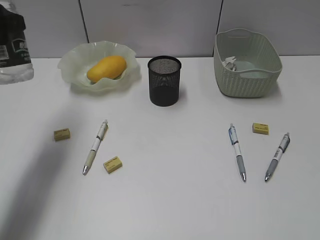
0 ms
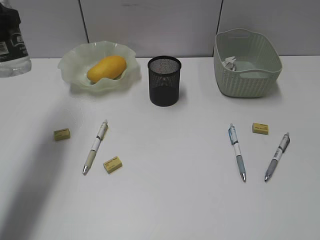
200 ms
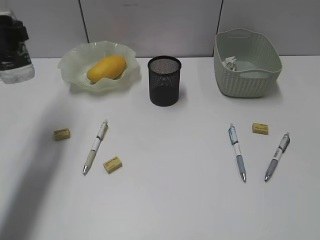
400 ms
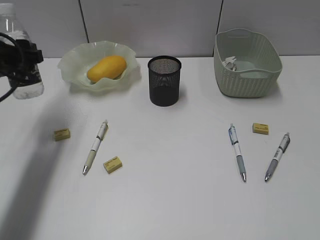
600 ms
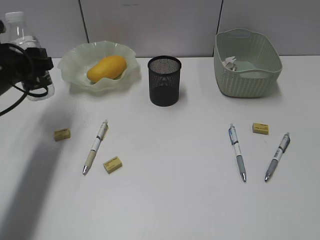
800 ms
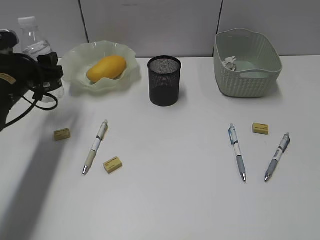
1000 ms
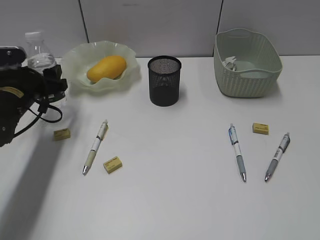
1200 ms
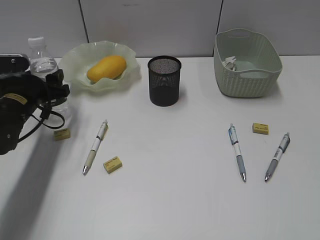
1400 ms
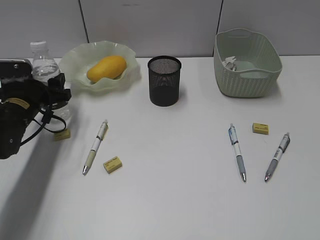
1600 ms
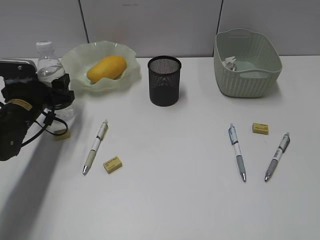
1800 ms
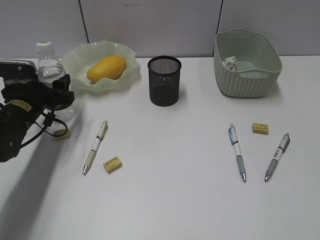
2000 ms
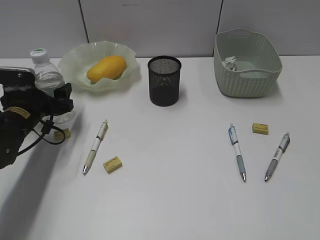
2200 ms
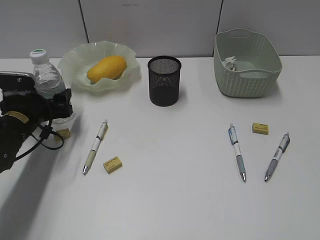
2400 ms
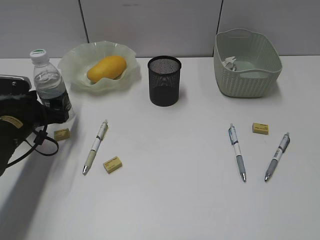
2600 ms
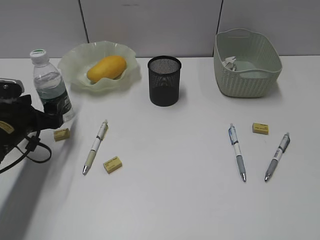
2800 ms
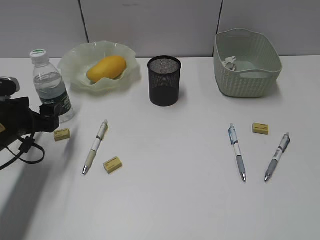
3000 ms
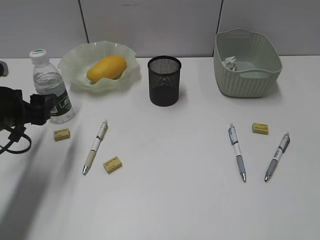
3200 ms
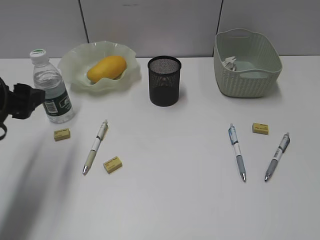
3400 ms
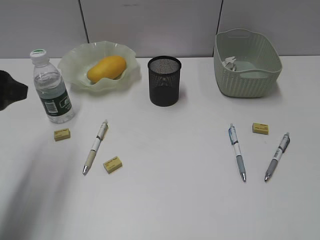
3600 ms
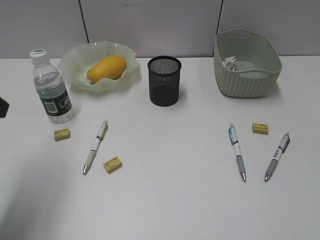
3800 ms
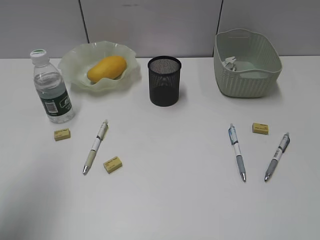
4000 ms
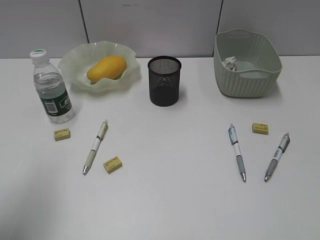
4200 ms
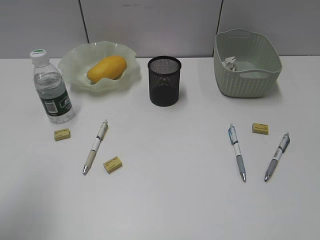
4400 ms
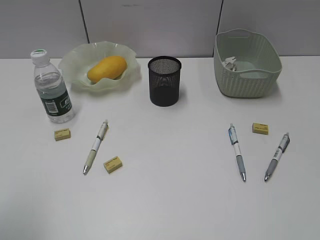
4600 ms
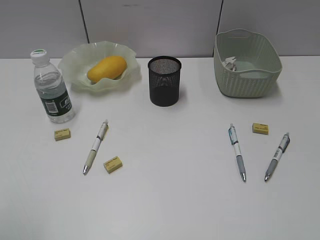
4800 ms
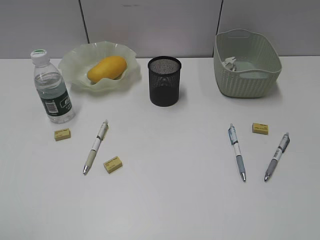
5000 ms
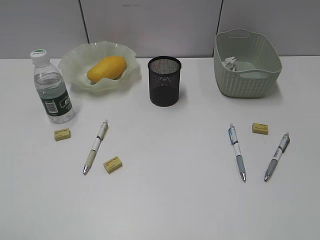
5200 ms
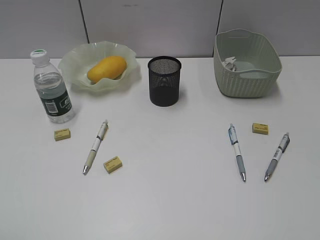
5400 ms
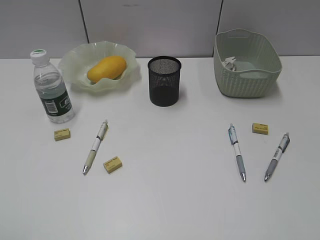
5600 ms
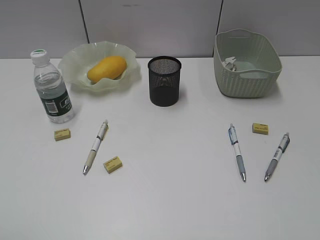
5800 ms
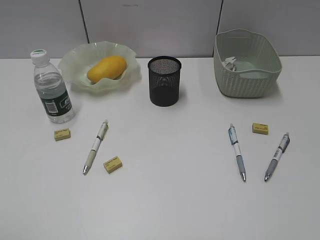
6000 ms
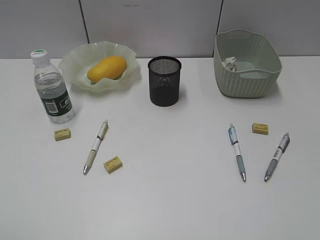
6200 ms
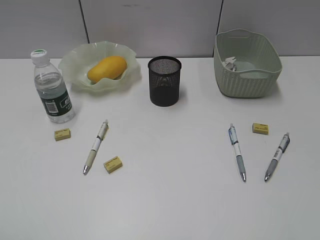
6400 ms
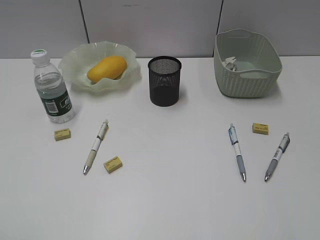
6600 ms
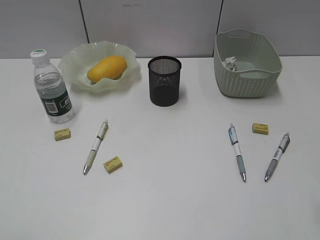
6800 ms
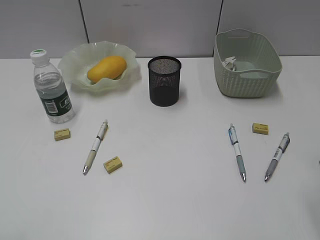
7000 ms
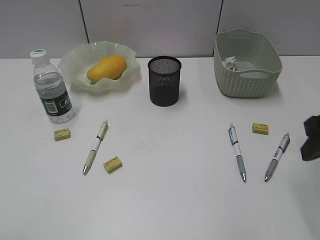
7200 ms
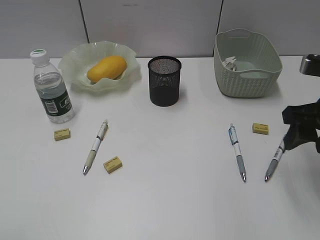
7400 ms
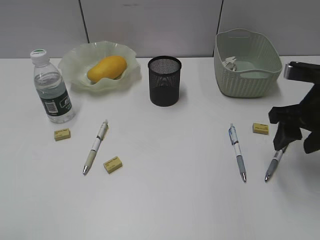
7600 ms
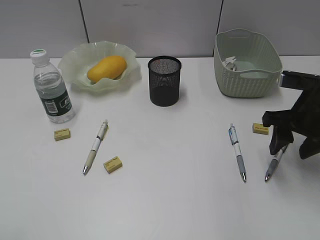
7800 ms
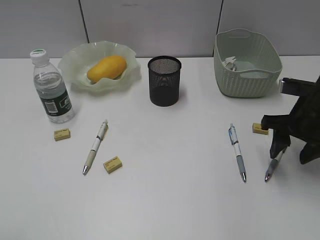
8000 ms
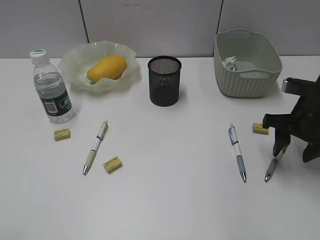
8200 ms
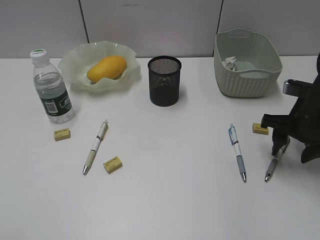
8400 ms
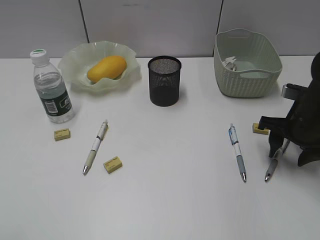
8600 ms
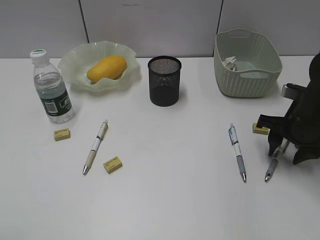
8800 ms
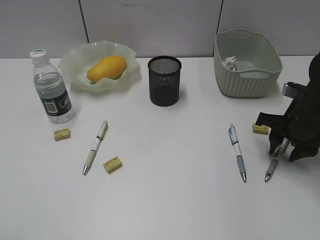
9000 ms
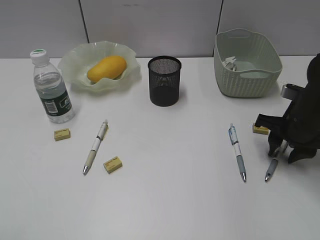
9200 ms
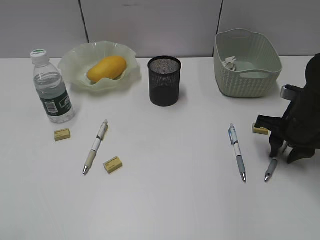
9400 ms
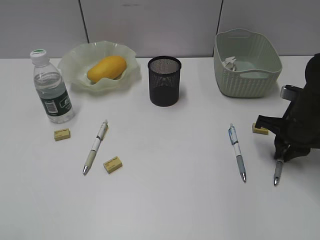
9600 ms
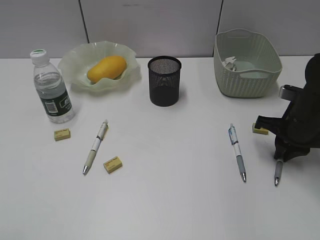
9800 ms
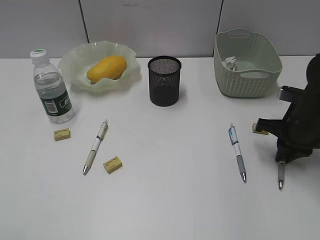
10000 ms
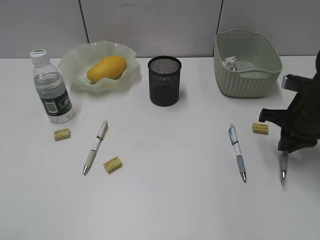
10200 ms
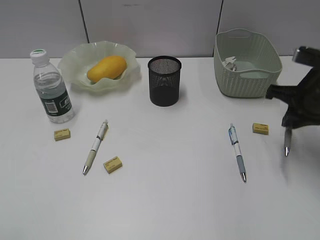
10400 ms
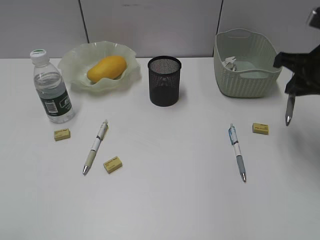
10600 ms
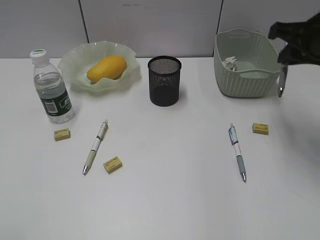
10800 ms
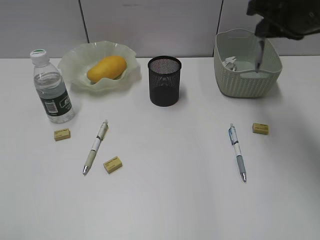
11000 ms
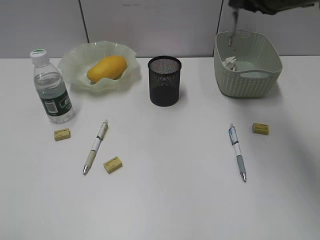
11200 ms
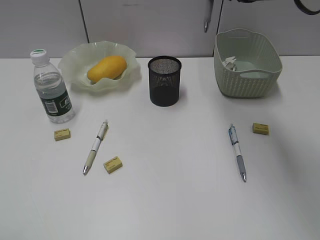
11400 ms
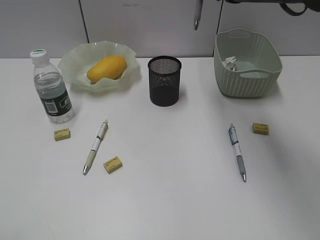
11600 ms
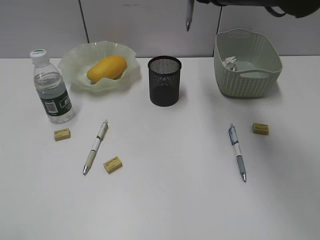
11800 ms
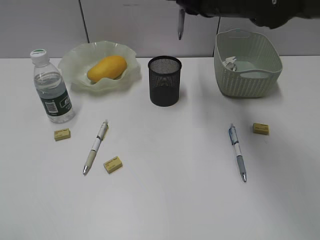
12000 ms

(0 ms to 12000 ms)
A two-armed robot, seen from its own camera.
Step, 0 ms - 2600 ms: Stand the bottle with left gripper.
Step, 2800 ms - 10000 ms: Grasp the gray pen with right gripper.
0 ms - 1600 ms: The left gripper travels downward and forward by approximately 20 cm.
1600 ms - 3000 ms: The left gripper moves backward, roughly 5 cm.
3000 ms - 4400 ms: The left gripper is displaced upward and backward by approximately 25 cm.
4400 ms - 6000 ms: The left gripper heads backward, covering about 15 cm.
6000 ms - 7600 ms: The right gripper travels forward by approximately 25 cm.
7600 ms - 9000 ms: The right gripper heads downward, covering approximately 5 cm.
9000 ms - 10400 ms: The right gripper goes some 5 cm upward, and closes its fingers.
10400 ms - 12000 ms: The right gripper is displaced to the left, upward and forward by approximately 20 cm.

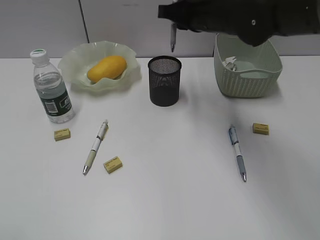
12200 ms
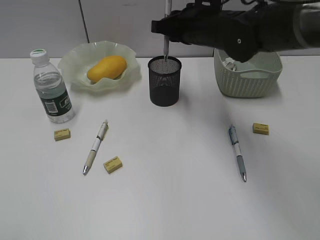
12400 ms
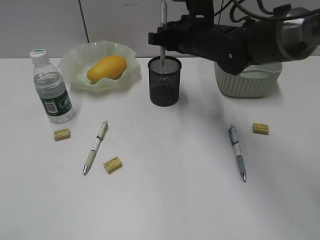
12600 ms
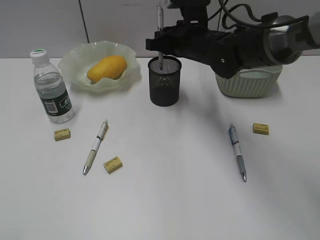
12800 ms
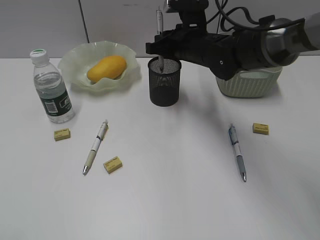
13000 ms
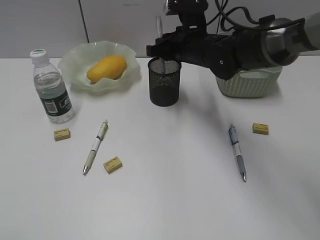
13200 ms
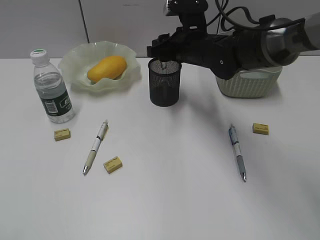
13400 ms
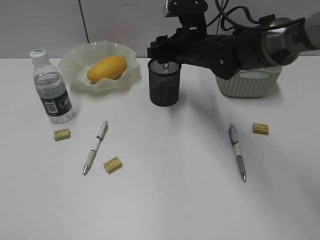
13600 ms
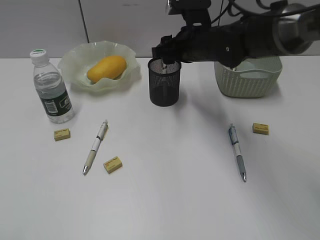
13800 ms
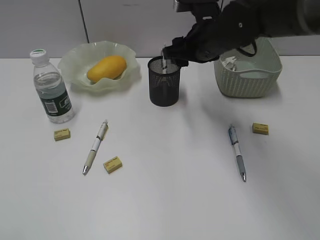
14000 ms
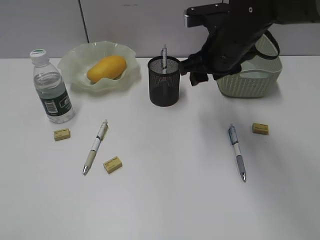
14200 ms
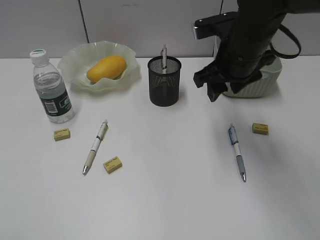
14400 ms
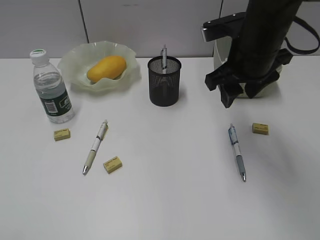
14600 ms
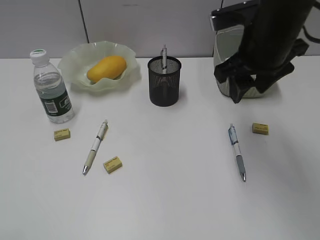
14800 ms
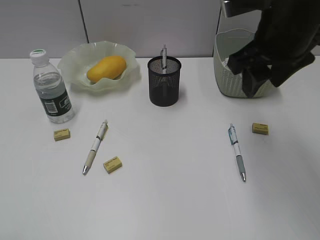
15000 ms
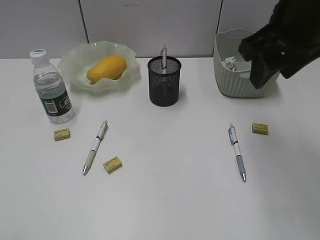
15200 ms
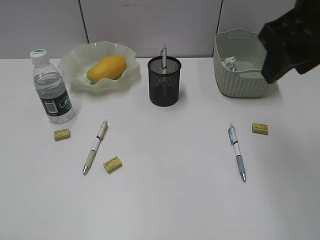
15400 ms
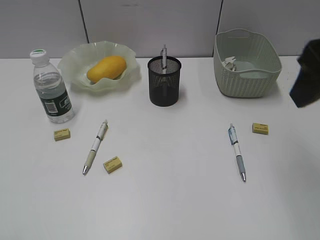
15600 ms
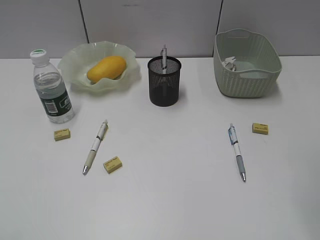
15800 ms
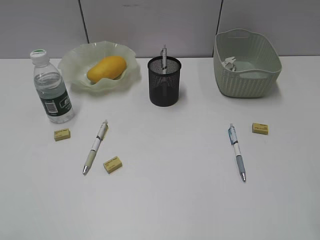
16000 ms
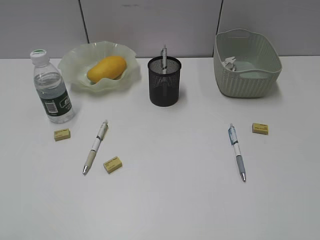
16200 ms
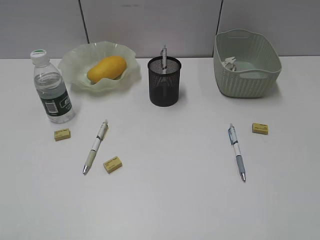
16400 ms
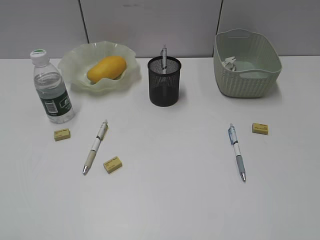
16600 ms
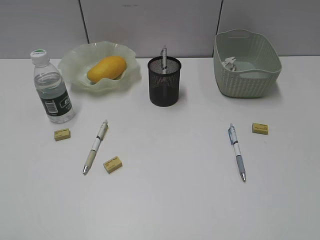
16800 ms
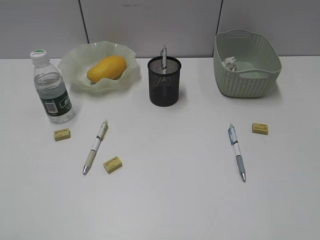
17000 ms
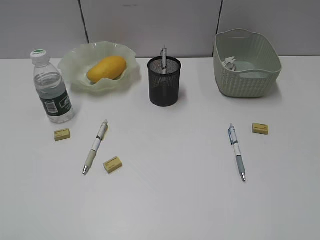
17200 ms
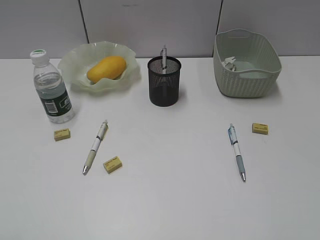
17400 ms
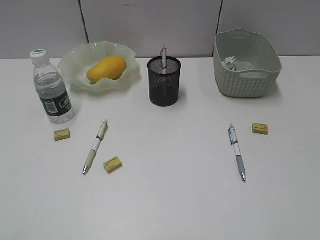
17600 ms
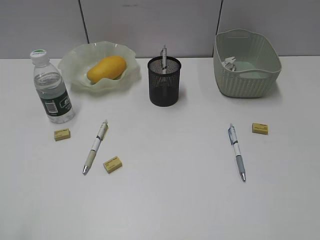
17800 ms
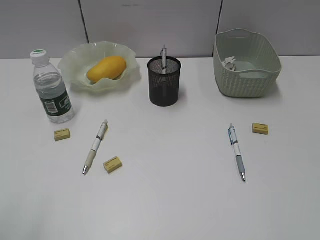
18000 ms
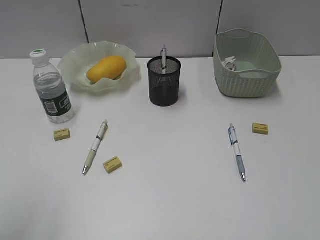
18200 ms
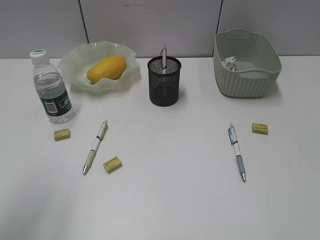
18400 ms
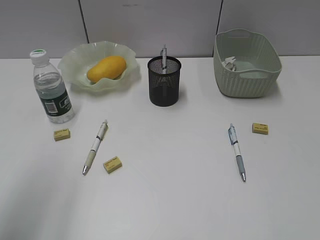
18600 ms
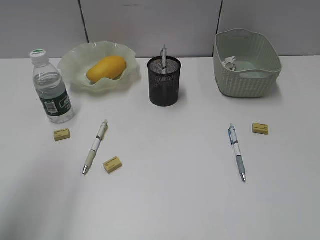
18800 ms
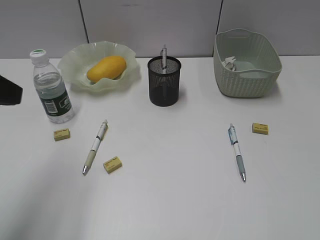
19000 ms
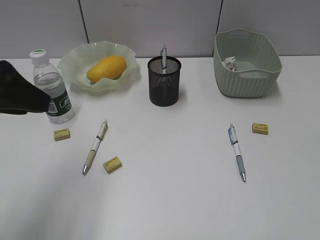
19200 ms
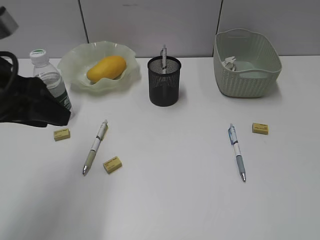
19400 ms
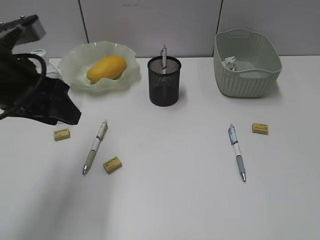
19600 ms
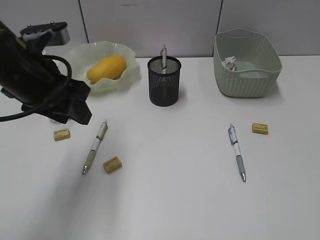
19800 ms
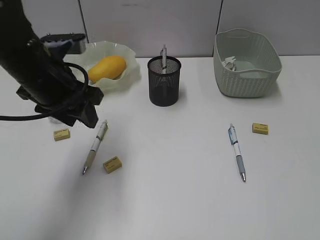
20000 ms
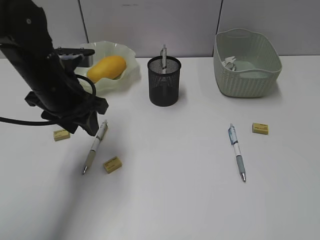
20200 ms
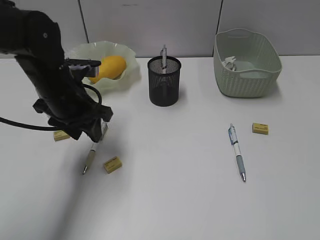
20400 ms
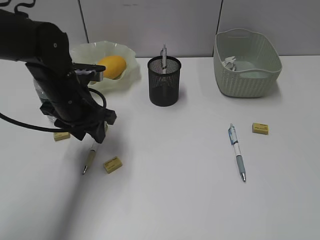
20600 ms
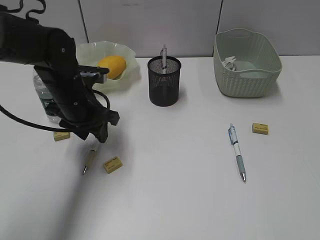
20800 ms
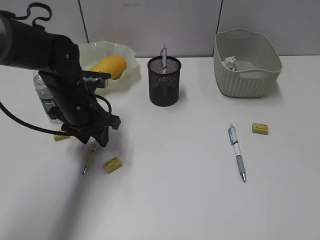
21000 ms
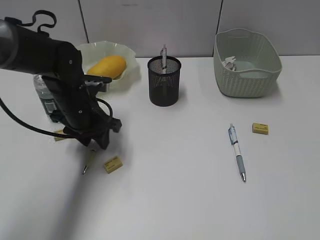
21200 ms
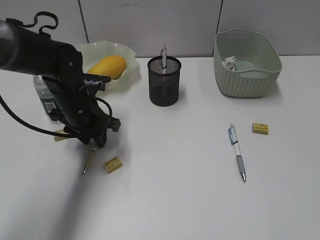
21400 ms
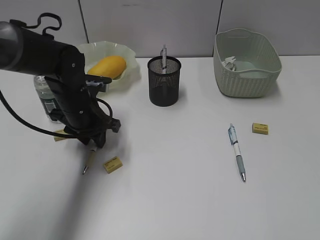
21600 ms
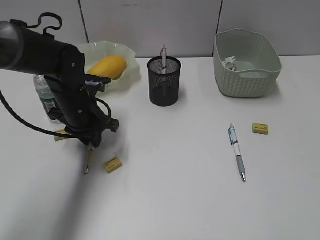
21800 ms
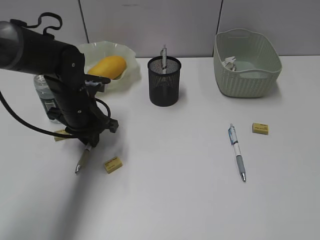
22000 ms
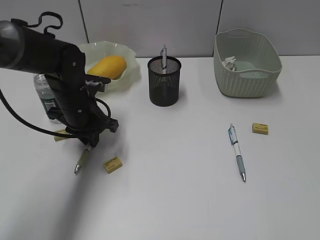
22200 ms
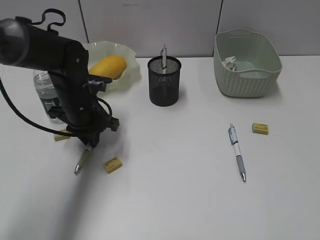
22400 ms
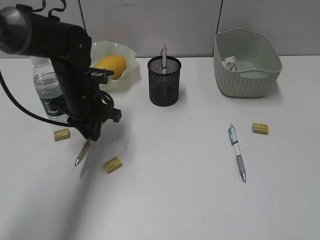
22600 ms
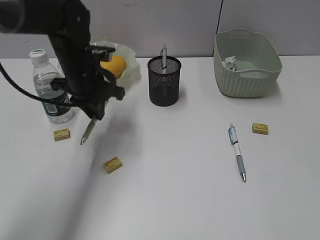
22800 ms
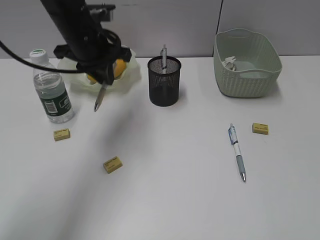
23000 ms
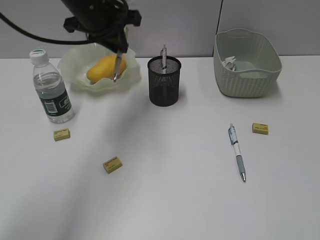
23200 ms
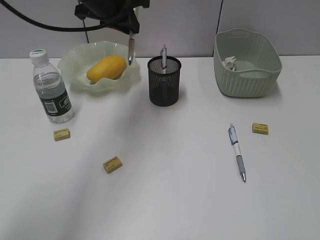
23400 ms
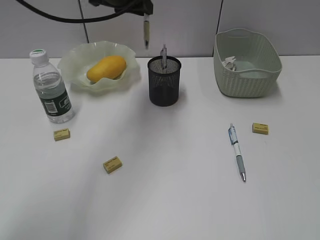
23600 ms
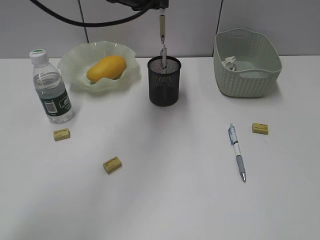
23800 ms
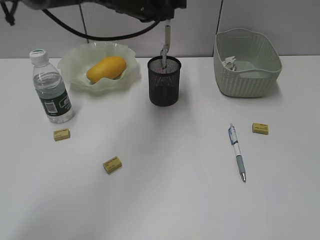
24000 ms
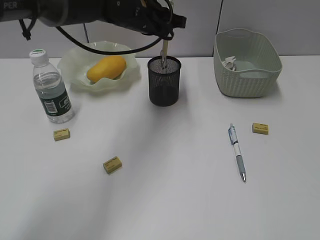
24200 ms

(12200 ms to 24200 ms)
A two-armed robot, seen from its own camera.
Step, 13800 ms - 22000 ms: Grasp the yellow pen with left gripper.
12200 ms - 13800 ms: The right gripper heads downward, covering approximately 5 cm, and opens.
13800 ms - 15200 ms: The right gripper heads upward, backward and to the right, covering roughly 20 cm.
15200 ms - 16600 ms: The right gripper heads backward and to the right, covering approximately 30 cm.
18200 ms - 19800 ms: The left gripper moves forward, to the right and downward, approximately 25 cm.
19800 ms - 21200 ms: The left gripper goes roughly 15 cm downward and forward.
21200 ms - 22600 ms: The left gripper closes its fingers.
22600 ms - 24200 ms: The left gripper shifts approximately 15 cm upward, to the right and forward.
